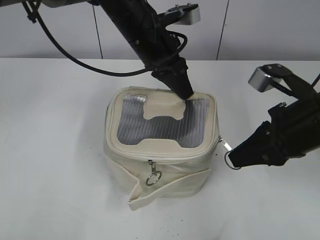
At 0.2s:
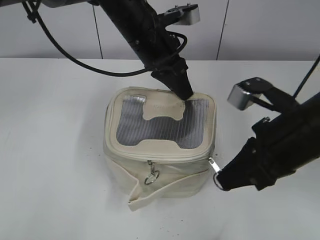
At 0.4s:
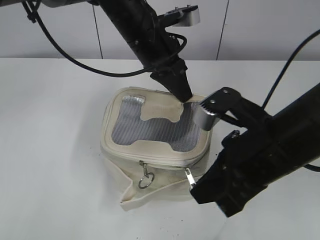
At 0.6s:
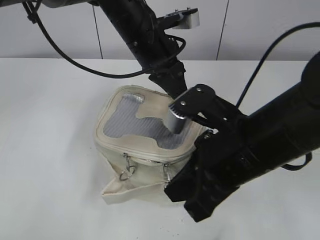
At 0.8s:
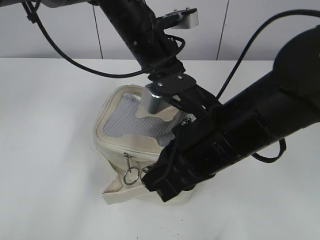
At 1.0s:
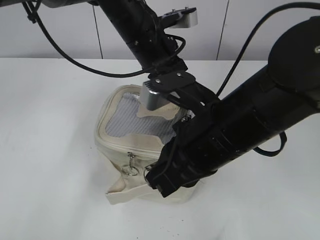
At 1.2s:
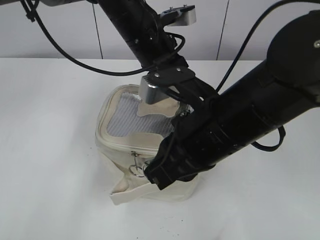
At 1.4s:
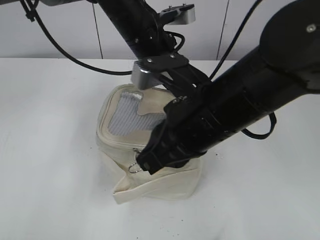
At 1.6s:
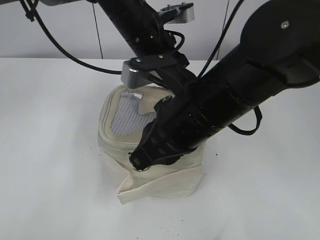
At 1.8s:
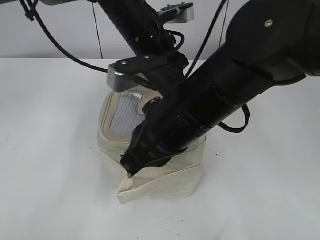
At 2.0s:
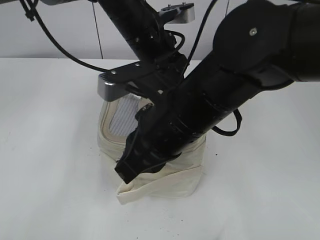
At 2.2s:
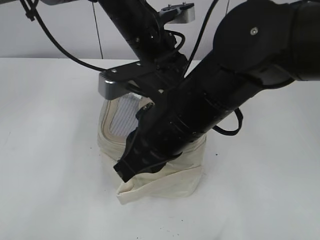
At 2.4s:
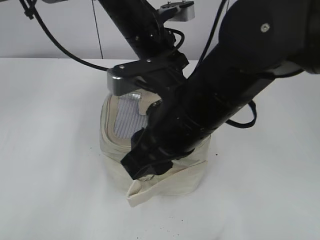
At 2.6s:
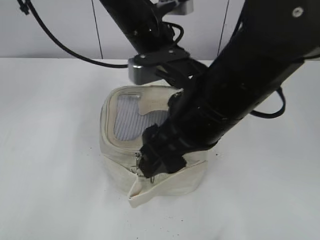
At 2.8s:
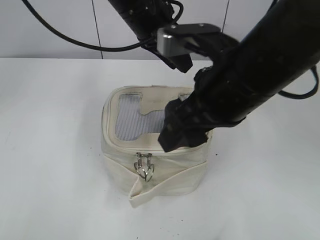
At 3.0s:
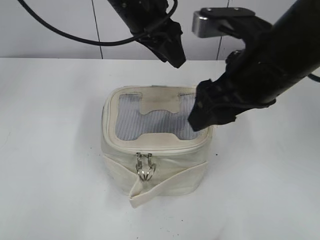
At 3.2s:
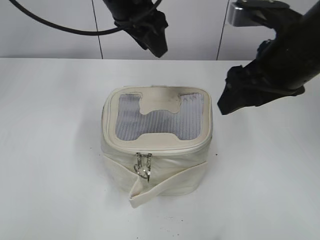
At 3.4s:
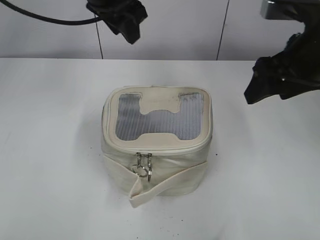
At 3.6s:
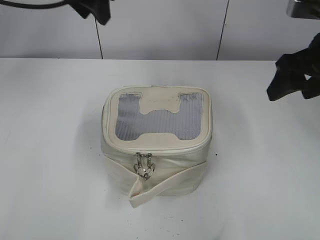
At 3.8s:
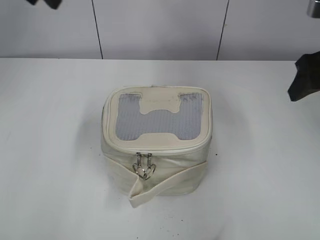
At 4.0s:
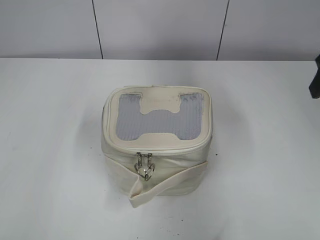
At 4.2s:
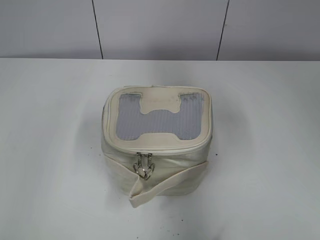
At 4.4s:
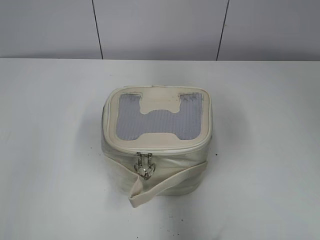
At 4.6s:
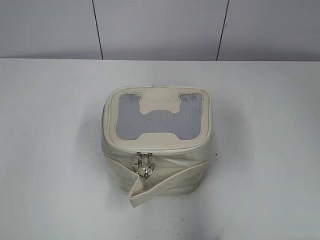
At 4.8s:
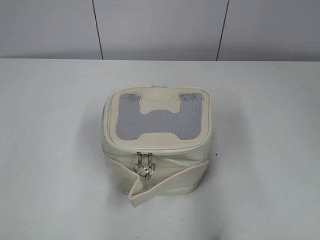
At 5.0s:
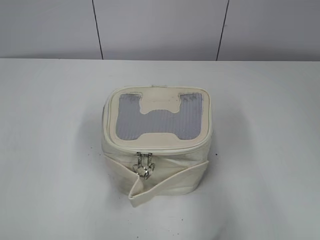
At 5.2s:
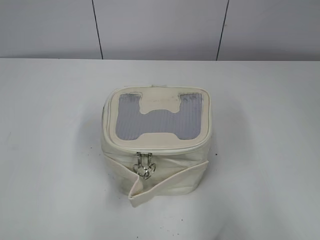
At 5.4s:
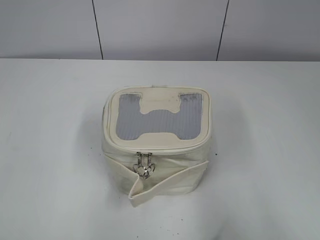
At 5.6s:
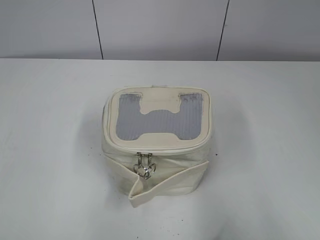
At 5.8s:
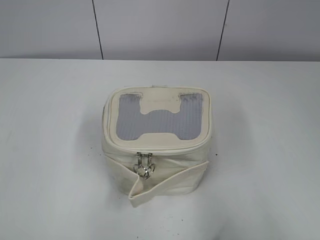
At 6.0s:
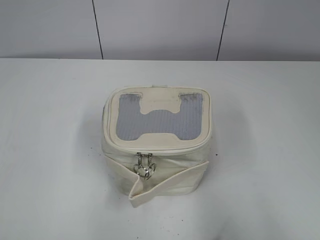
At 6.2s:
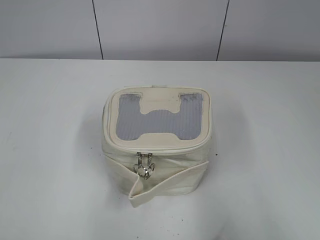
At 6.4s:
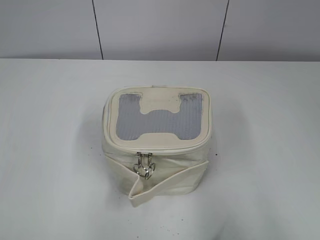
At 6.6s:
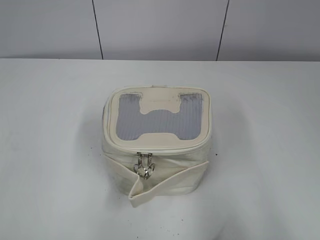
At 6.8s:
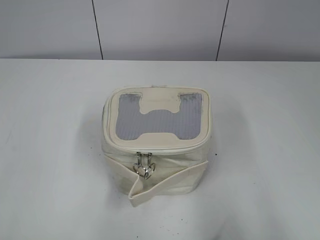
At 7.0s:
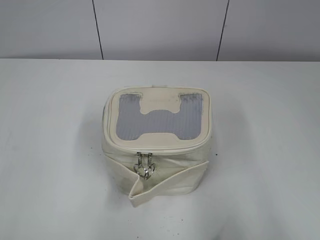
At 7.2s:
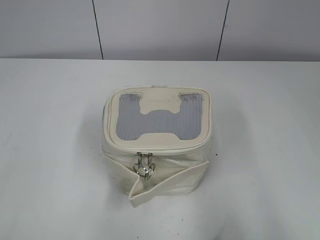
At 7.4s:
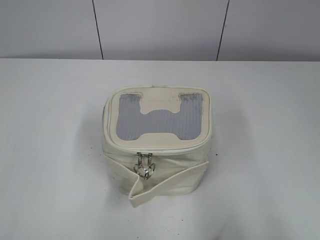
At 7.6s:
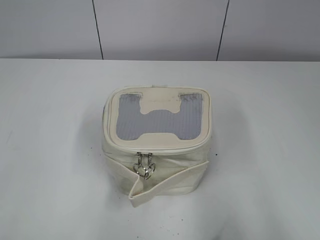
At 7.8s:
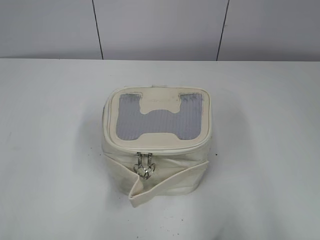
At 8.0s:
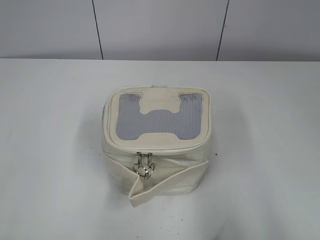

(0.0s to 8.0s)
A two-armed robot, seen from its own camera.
Step, 0.0s - 2.4s: Zip up the bag with your right hand.
0.0s - 1.6s: The right gripper travels to the left by some 15 cm.
1.6s - 3.2s: The right gripper heads to the right and upward, covering some 10 cm, and opens. Meanwhile the left gripper moves upward, about 5 cm, and opens its fingers.
3.2s - 4.8s: The left gripper moves backward and to the left, approximately 40 cm. The right gripper travels backward and to the right by some 20 cm.

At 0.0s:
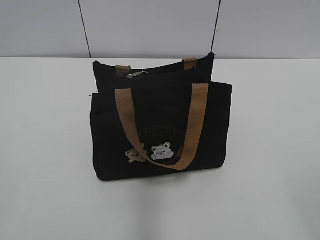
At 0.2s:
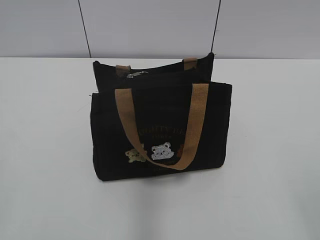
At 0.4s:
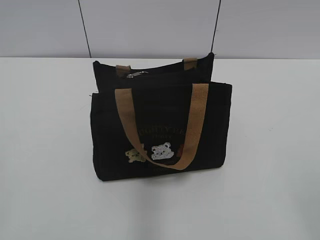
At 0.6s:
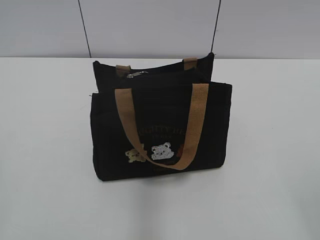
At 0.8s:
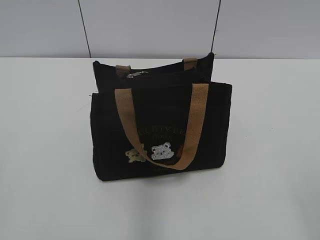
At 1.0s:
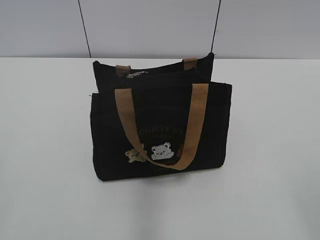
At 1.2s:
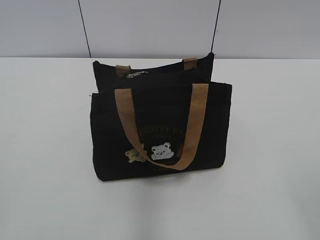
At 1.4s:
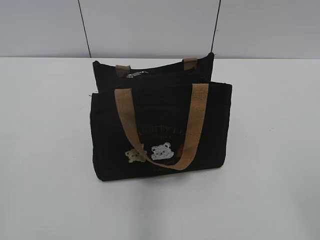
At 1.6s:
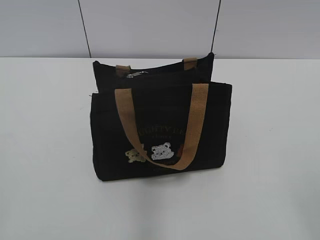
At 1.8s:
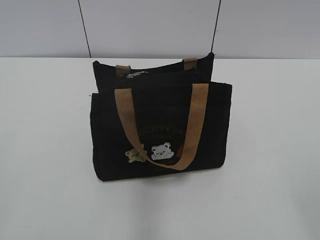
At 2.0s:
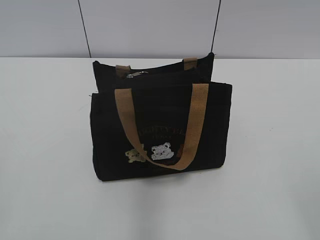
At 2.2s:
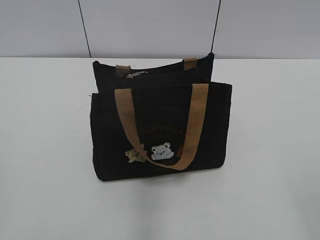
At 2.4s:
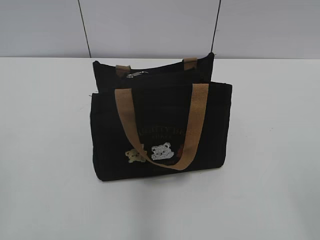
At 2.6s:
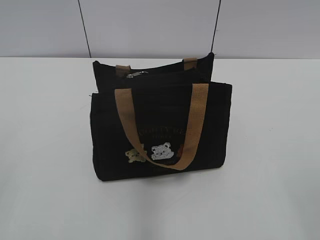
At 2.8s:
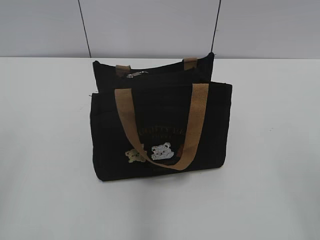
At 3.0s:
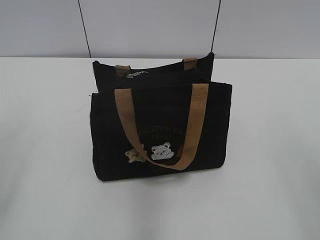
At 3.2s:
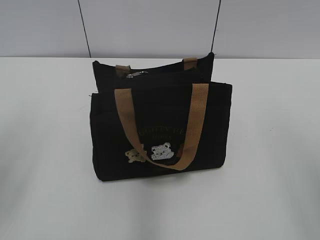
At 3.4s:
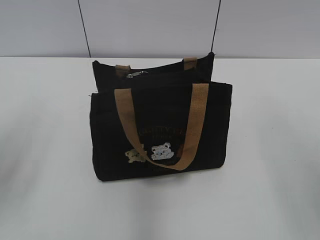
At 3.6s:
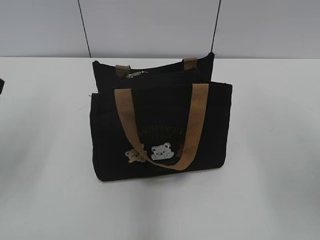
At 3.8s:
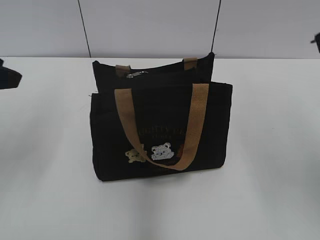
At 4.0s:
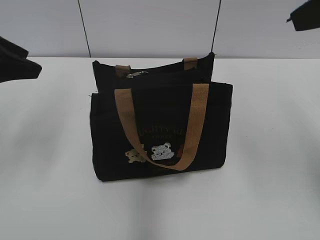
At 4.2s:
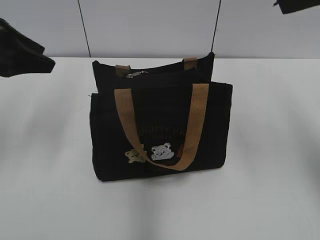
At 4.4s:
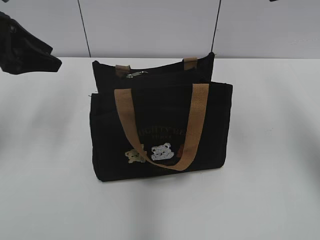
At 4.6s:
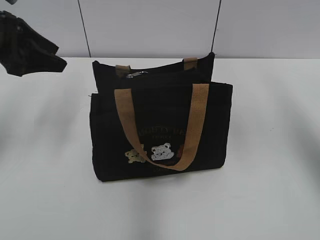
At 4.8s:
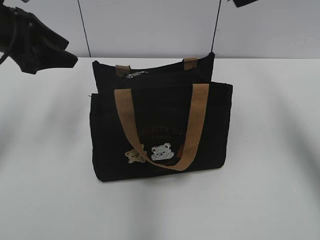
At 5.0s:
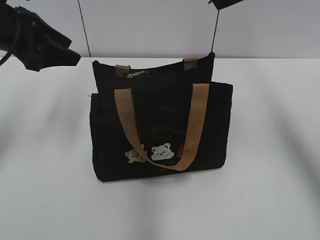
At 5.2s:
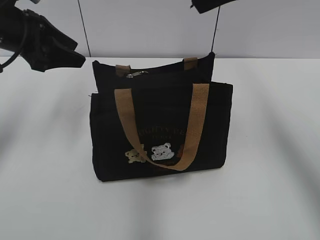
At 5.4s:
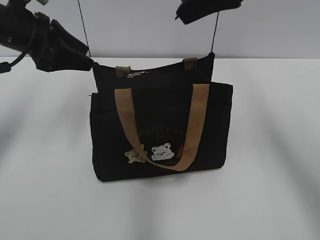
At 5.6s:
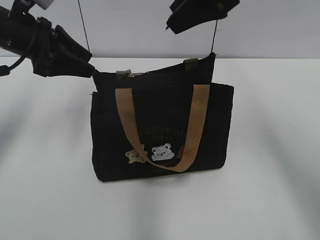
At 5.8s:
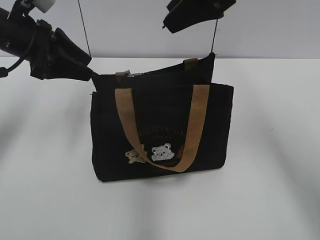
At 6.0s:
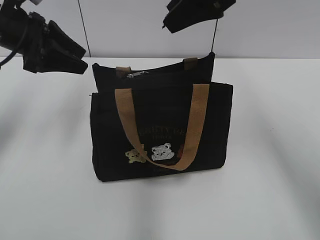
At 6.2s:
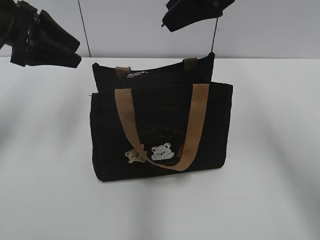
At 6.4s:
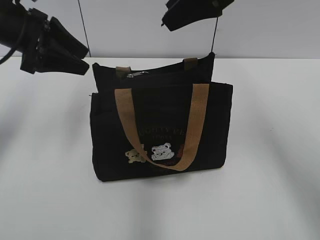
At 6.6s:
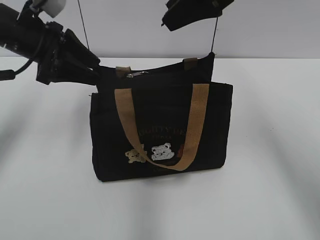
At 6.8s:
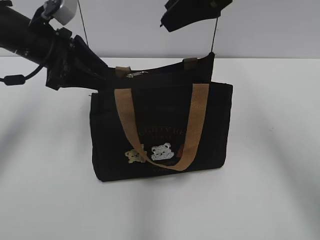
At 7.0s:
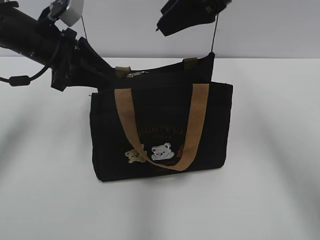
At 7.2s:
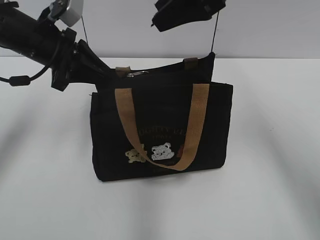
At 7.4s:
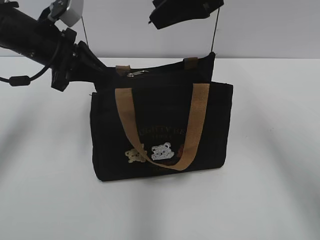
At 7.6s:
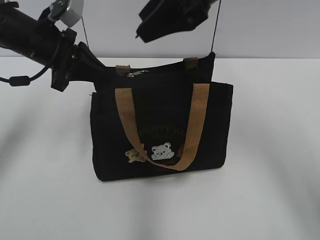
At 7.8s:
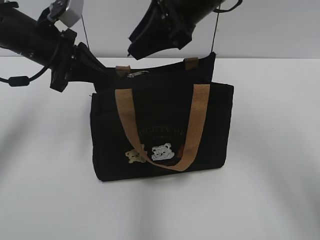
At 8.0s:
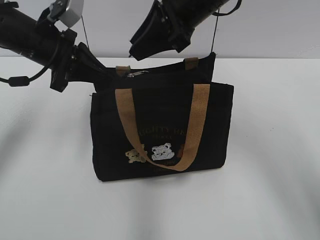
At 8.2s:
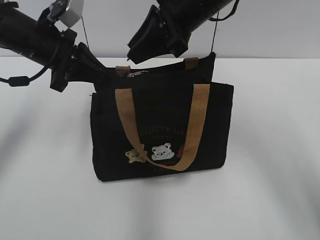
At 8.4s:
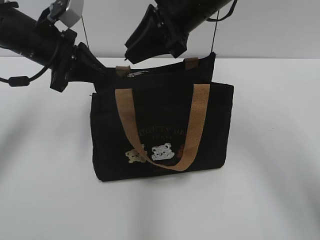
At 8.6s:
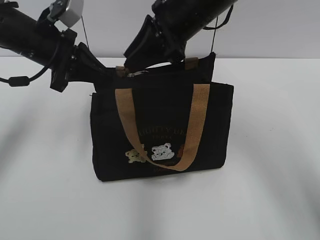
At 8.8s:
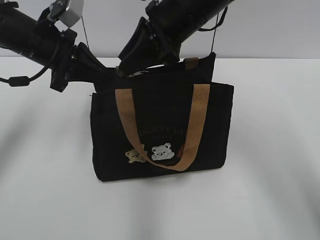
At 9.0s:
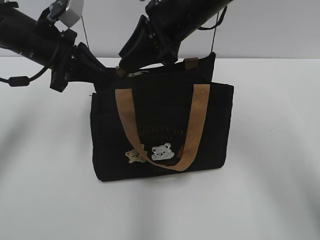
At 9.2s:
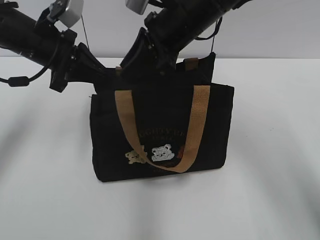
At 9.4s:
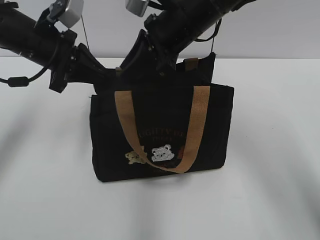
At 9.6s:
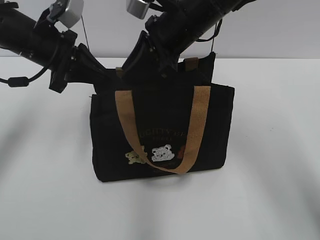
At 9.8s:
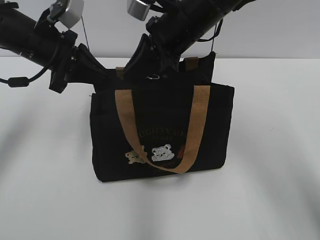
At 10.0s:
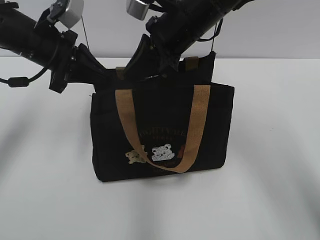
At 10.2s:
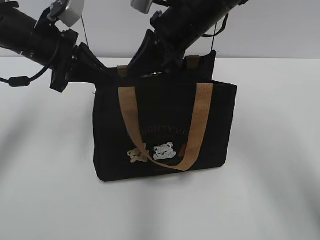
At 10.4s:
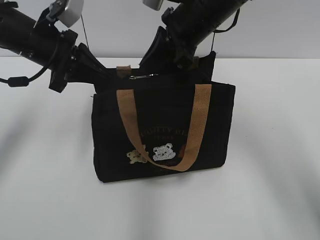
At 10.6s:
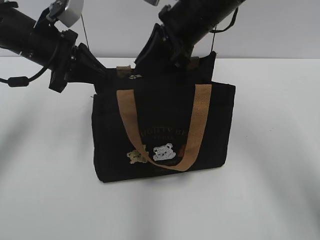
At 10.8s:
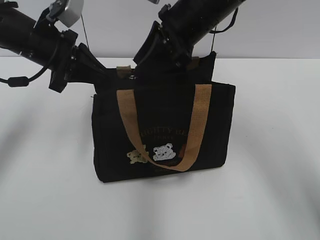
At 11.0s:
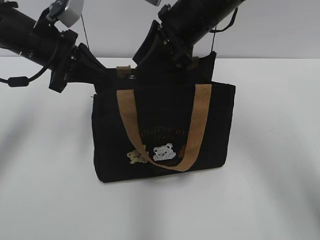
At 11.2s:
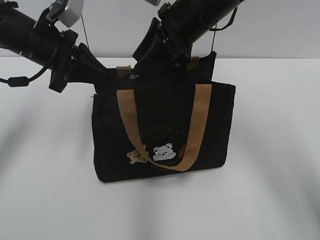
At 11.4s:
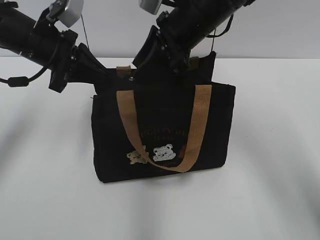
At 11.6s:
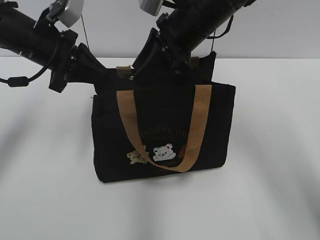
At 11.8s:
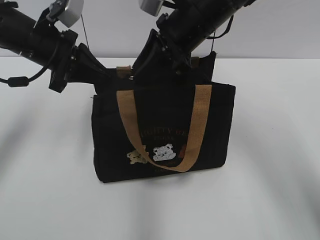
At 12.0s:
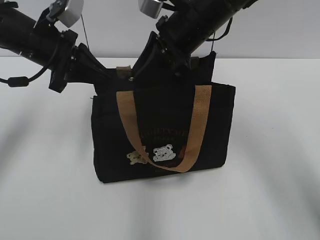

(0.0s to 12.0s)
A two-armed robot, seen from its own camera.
3.0s - 4.4s: Both grippers travel together forward, roughly 25 cm.
4.4s - 6.0s: The right gripper goes about 15 cm to the left, forward and downward, while the left gripper moves about 5 cm.
6.0s - 7.6s: The left gripper closes its fingers.
7.6s - 9.0s: The right gripper goes approximately 5 cm downward.
9.0s - 10.4s: The right gripper closes up.
10.4s - 12.0s: The right gripper opens.

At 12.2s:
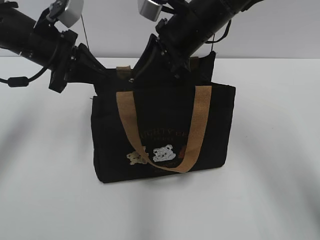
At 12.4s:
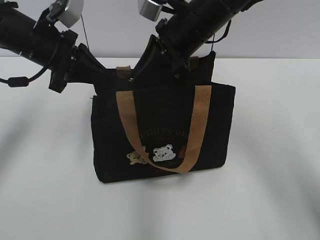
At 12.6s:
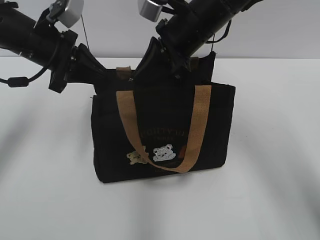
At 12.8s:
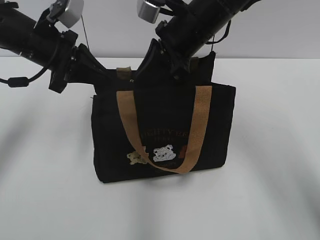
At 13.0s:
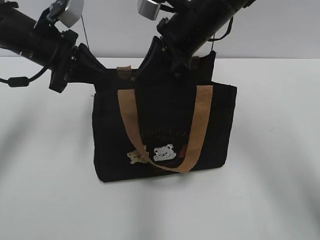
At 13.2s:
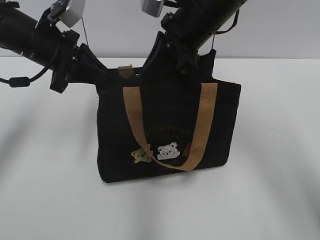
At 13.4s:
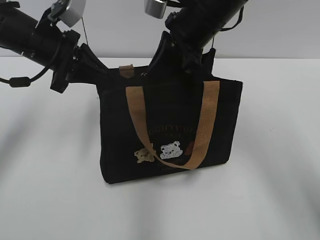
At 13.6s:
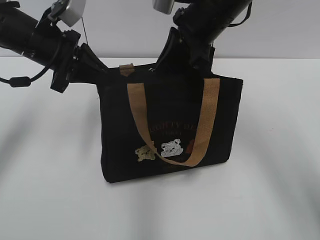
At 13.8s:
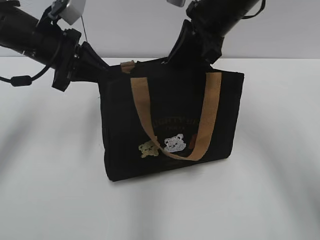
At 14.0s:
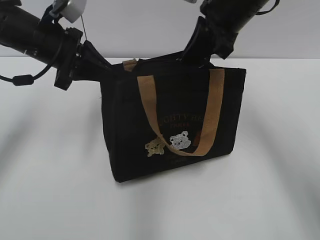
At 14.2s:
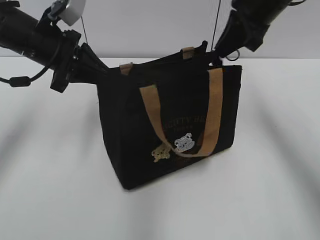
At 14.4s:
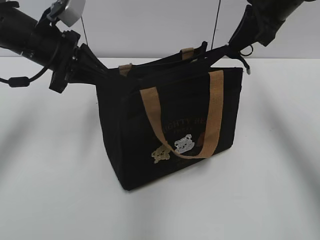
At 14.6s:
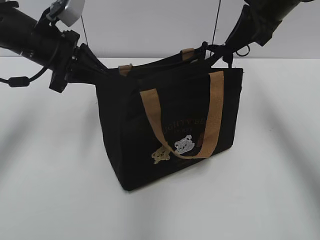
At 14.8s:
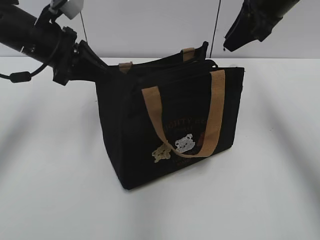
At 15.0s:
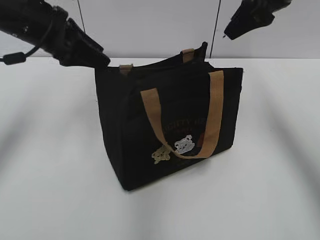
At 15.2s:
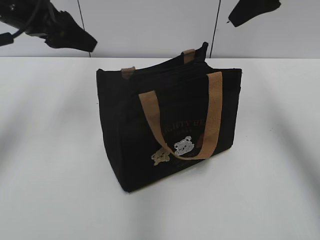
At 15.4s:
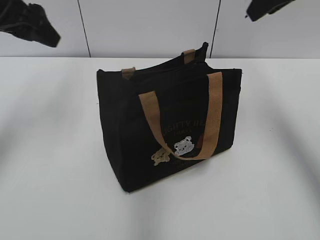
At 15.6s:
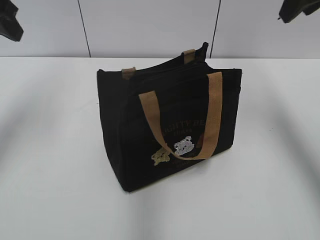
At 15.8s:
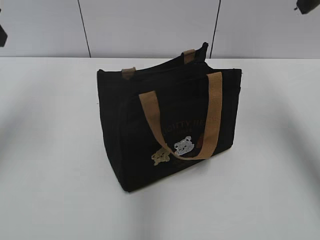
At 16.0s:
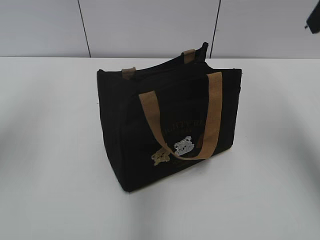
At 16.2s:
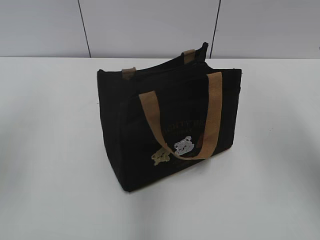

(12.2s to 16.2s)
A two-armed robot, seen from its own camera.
Step, 12.2s - 14.6s: Pull open the zipper with your right hand.
12.2s - 13.6s: The right gripper closes its fingers.
13.6s - 14.8s: The right gripper is displaced to the right by approximately 10 cm, and opens.
14.8s - 16.2s: The left gripper shifts about 20 cm backward, to the left and upward, and opens its fingers. Meanwhile the right gripper is displaced backward by some 15 cm, and opens.
